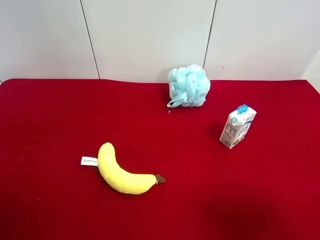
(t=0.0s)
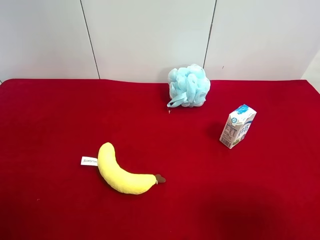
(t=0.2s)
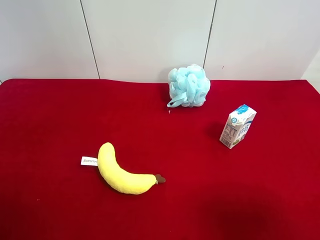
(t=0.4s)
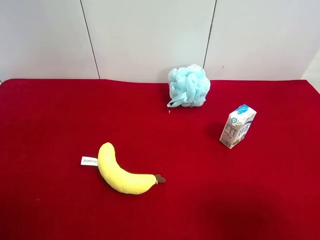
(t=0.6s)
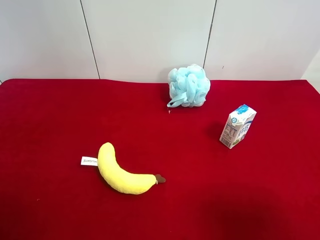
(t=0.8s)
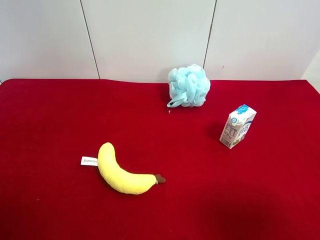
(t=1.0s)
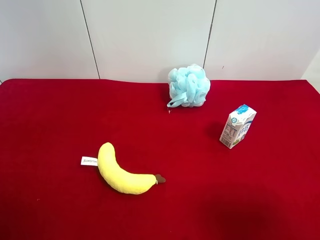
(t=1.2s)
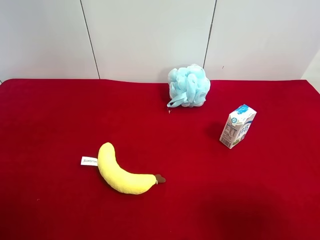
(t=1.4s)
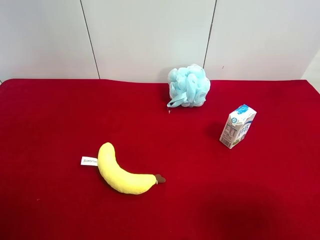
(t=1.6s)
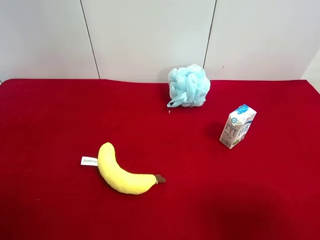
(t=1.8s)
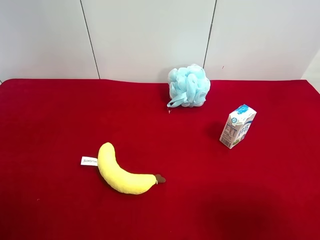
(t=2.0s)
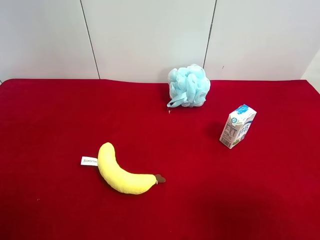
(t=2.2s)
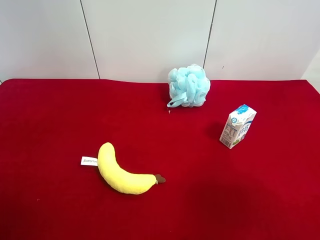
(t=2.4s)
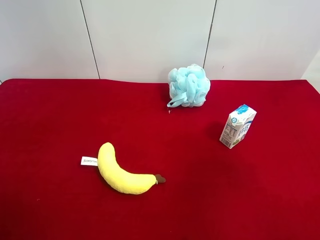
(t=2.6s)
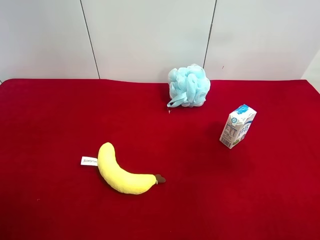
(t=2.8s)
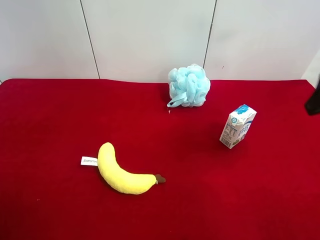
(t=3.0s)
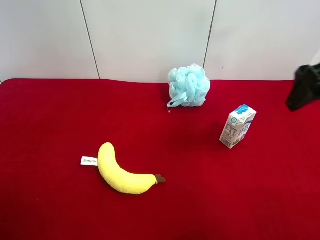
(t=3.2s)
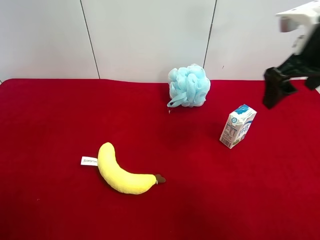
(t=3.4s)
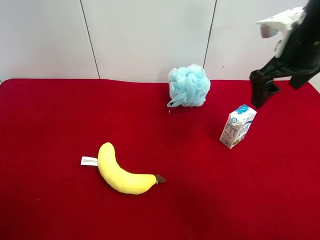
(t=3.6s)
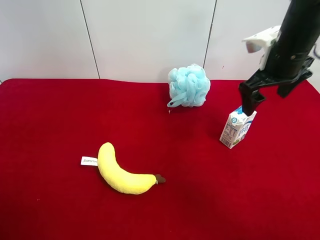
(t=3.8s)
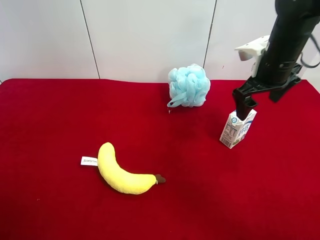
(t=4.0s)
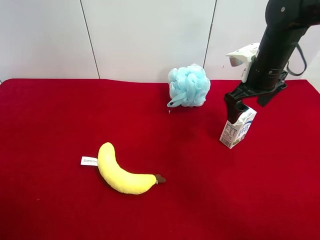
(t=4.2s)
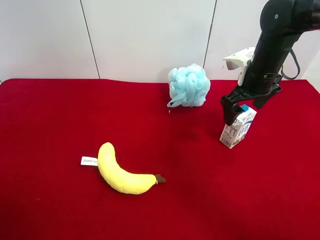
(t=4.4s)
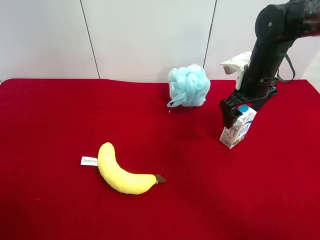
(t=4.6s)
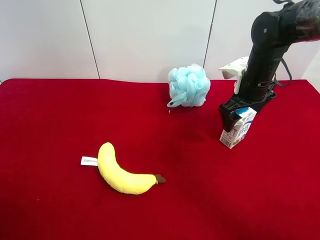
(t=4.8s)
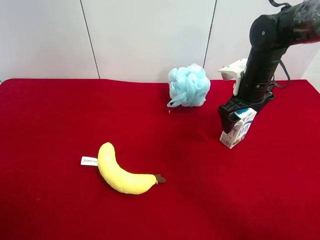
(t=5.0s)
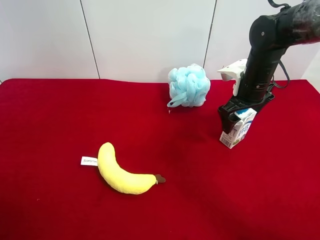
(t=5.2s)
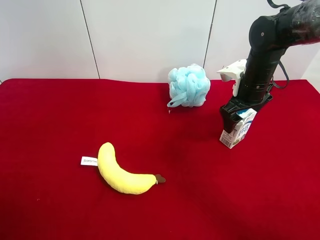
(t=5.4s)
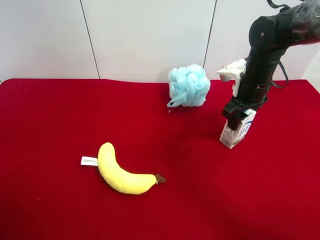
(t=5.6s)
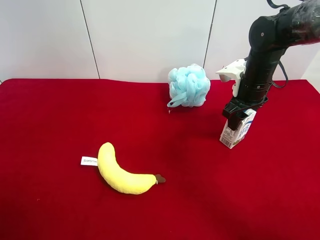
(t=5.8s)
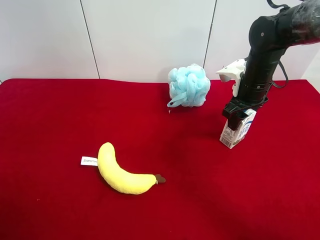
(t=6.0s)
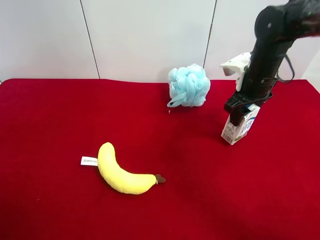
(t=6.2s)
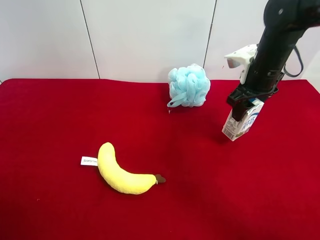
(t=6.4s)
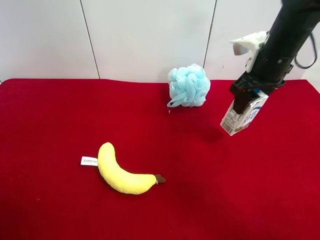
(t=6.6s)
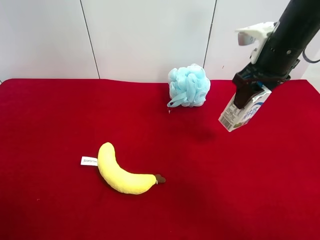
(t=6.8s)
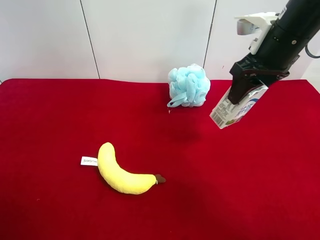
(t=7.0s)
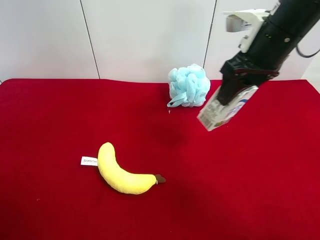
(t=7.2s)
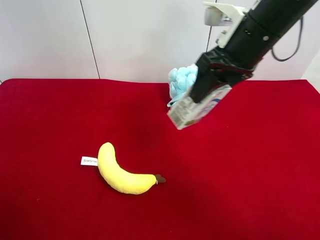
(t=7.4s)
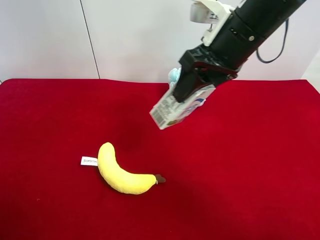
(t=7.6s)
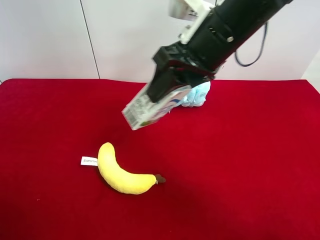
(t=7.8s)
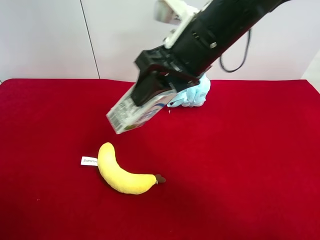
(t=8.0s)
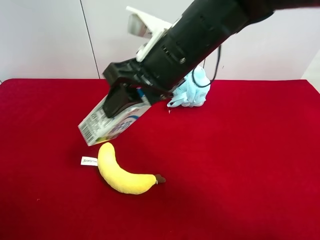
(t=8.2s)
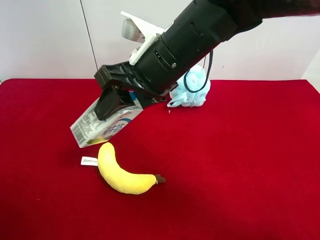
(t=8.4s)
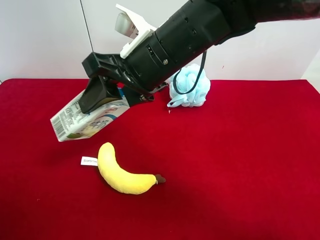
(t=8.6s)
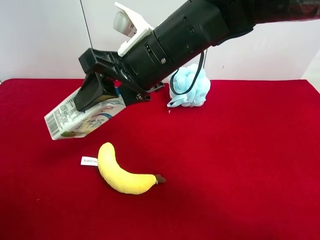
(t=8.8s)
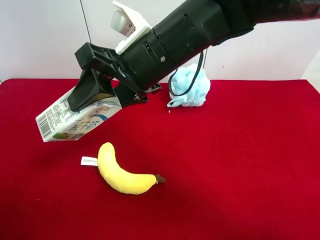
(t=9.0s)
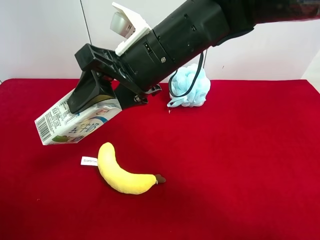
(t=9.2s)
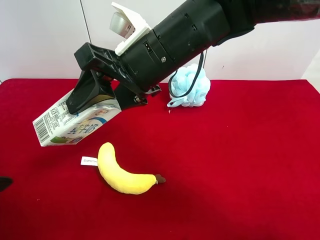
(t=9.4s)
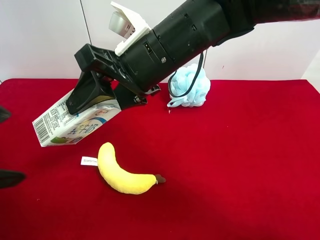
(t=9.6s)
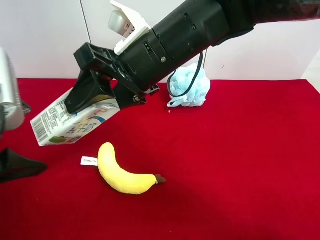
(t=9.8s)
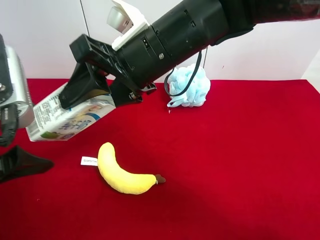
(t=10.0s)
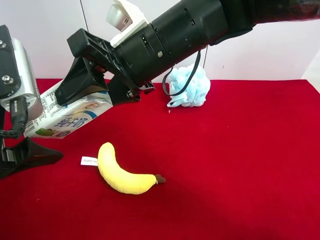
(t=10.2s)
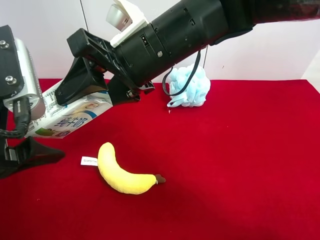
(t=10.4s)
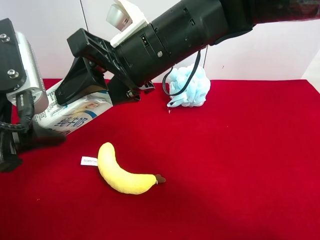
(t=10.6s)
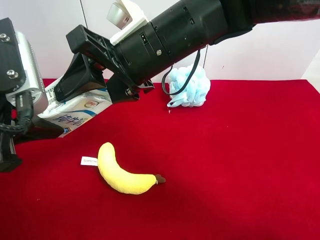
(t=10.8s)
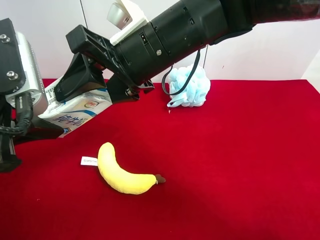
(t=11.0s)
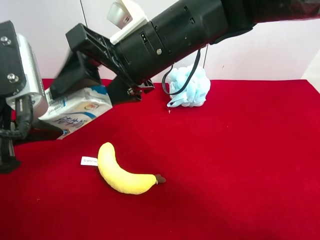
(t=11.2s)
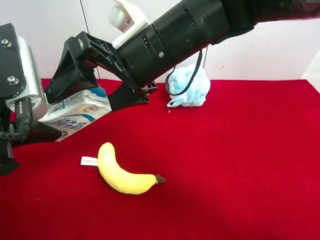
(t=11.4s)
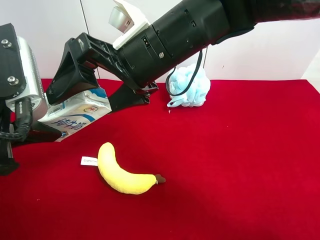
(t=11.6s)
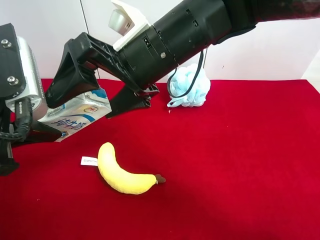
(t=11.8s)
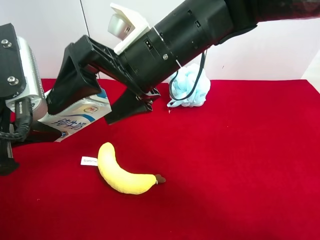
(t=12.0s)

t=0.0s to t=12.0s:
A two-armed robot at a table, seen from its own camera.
Task of the whole recording: use the right gripper to pick up the item and transfer it from the right gripper to the left gripper.
Step, t=0.0s to t=5.6s: Use the right gripper to grab the milk on the right side of the table.
Step, t=5.8s to t=11.8s: Pass the milk to the left gripper.
t=0.0s to t=1.6s: Neither gripper changes place.
t=3.0s to t=4.4s: The right gripper heads forward, downward and to the left, covering some 20 cm.
t=4.4s to t=6.0s: The right gripper closes.
t=6.0s to t=7.6s: The right gripper shifts about 20 cm upward, to the left and backward.
t=7.6s to t=9.0s: The left gripper travels forward by about 5 cm. Meanwhile the right gripper is displaced to the left by approximately 10 cm.
t=9.0s to t=10.4s: The left gripper is displaced forward and to the right by some 10 cm.
t=10.4s to t=12.0s: The left gripper closes. The right gripper opens its fingers.

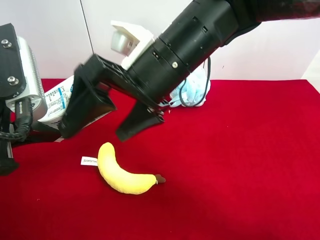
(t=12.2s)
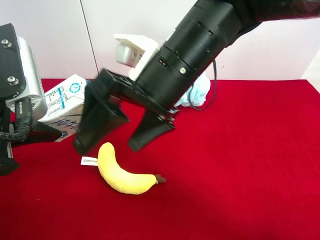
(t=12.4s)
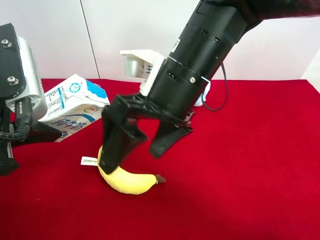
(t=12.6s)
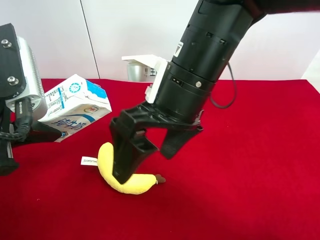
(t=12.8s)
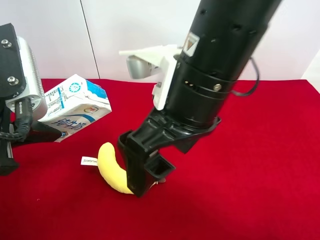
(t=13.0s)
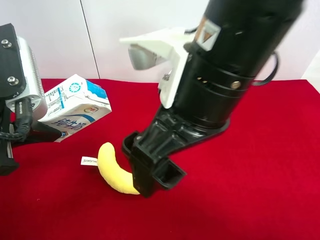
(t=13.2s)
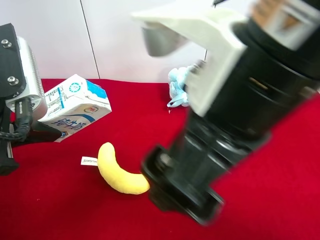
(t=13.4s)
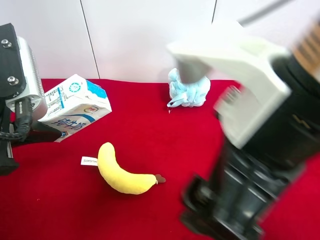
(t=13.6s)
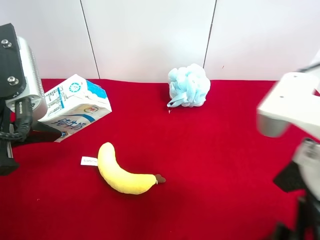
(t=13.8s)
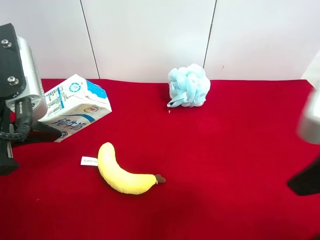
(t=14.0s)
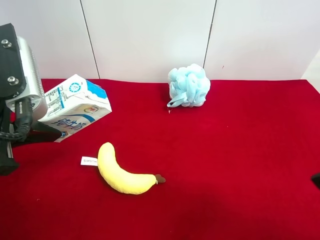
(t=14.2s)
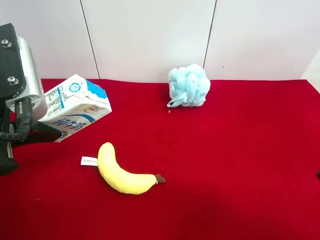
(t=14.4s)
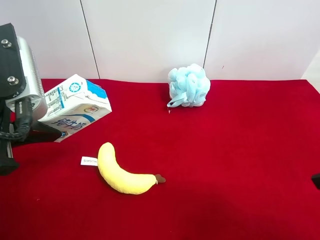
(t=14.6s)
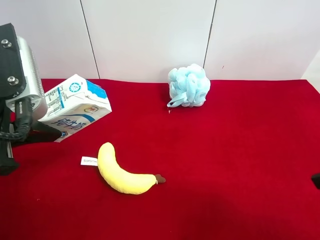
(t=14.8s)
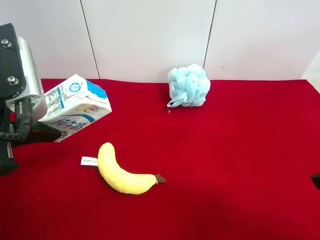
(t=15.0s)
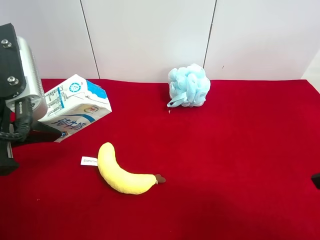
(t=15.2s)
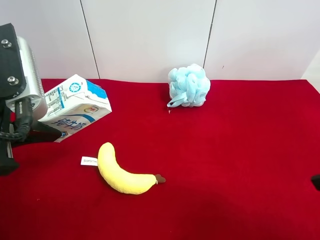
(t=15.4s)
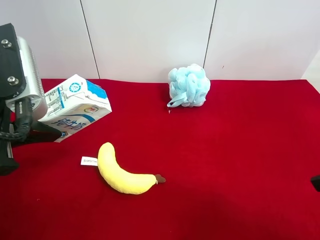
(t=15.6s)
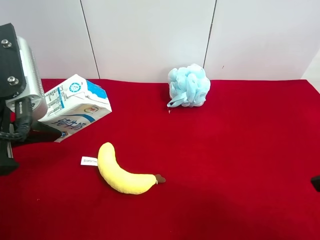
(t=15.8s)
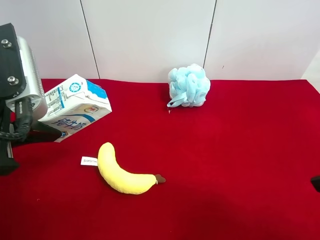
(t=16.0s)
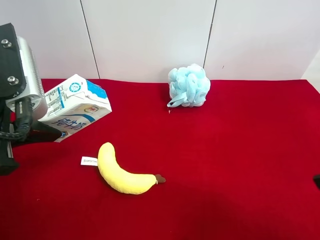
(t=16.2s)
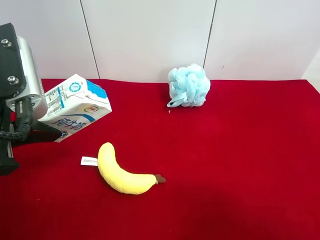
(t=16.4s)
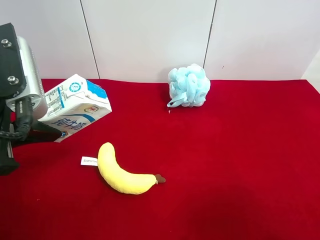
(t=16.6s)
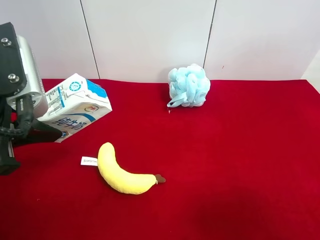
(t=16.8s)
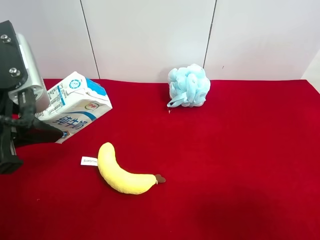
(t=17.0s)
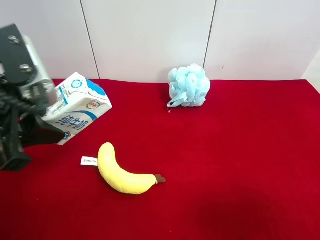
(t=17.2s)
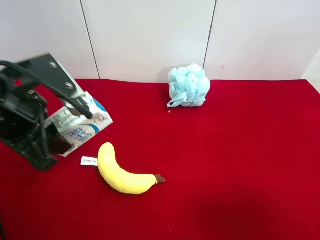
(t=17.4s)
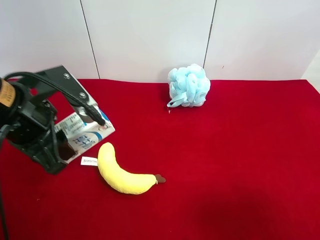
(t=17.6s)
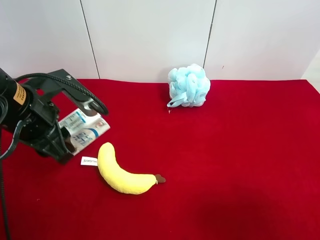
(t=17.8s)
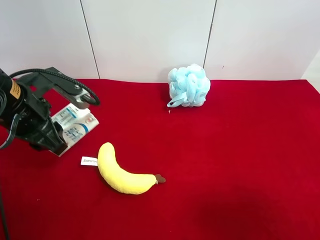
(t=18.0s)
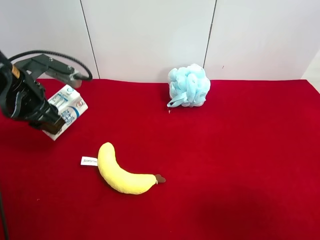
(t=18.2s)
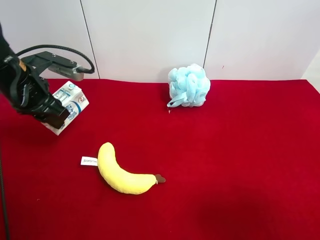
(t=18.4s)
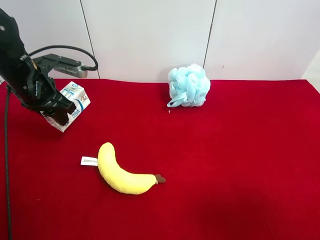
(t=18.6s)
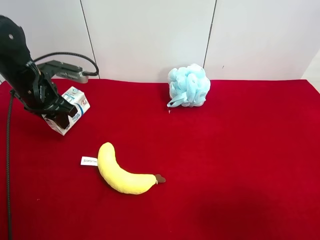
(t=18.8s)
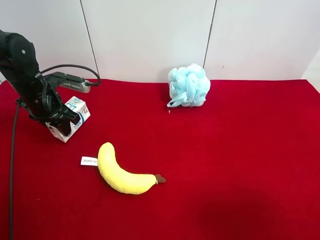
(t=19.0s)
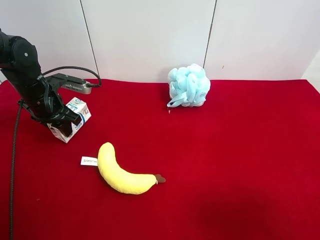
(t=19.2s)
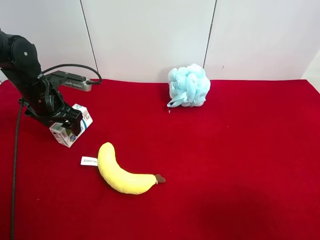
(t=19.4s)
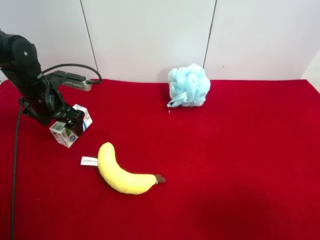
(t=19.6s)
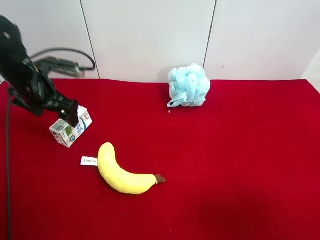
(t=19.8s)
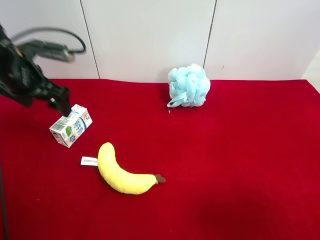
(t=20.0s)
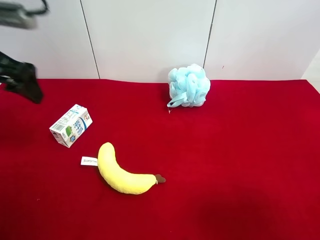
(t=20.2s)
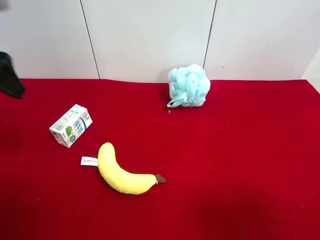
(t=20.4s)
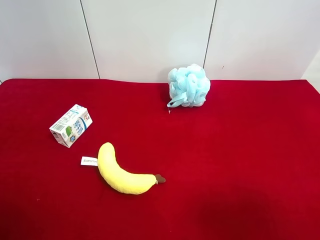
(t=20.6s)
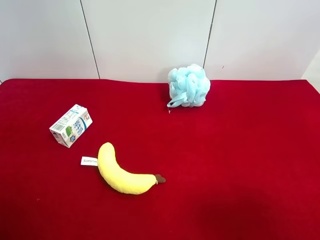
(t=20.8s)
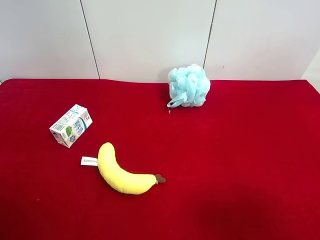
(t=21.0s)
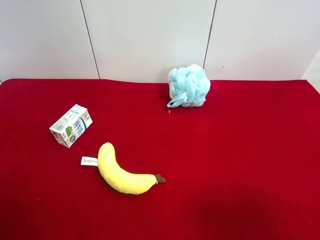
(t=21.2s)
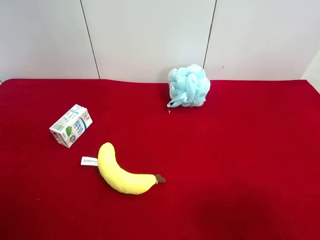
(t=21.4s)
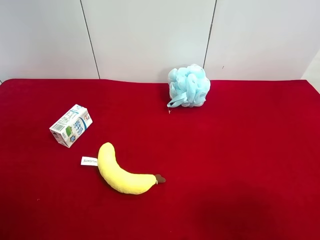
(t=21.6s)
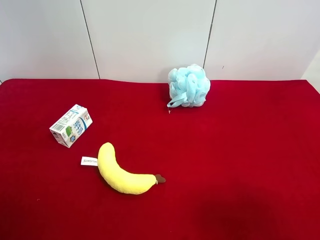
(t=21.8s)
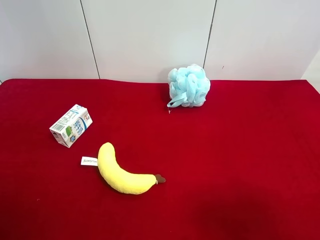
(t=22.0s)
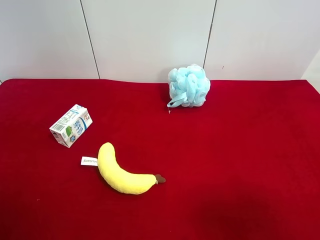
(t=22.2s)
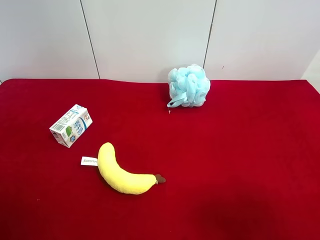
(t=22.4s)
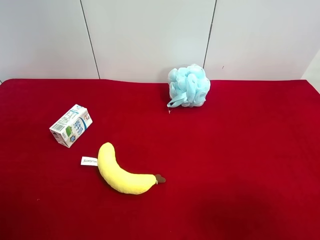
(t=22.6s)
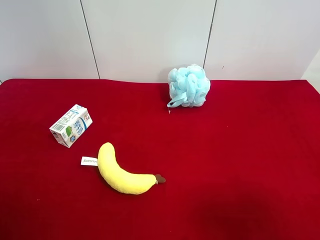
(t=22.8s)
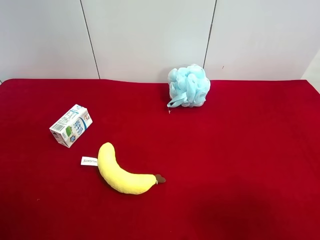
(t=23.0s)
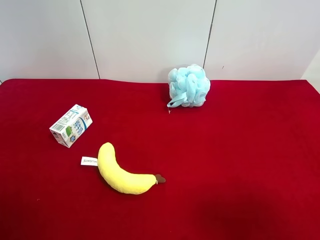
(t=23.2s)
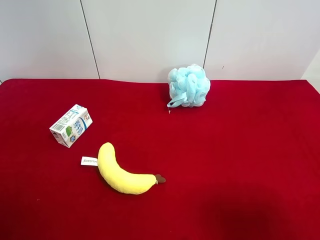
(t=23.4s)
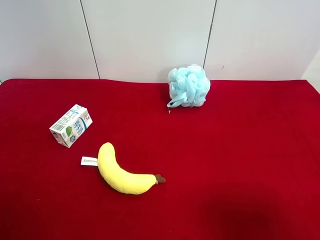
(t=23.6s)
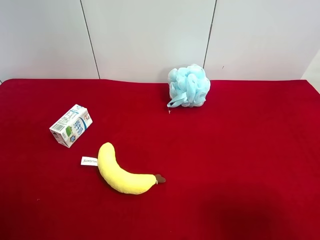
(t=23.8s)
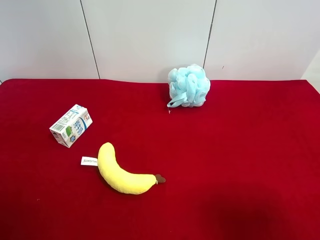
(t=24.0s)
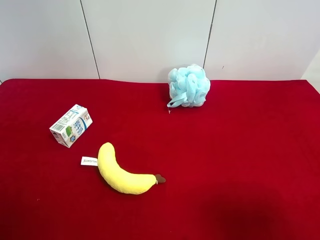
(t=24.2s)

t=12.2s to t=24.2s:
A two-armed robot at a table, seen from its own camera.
Task of the whole recording: use the right gripper to pick up the item and transfer it from the right gripper to the left gripper.
Step, t=12.2s to t=19.4s: The left gripper places milk on the left side of the table.
t=12.2s to t=13.8s: The right gripper goes approximately 20 cm backward and to the right.
t=13.8s to t=15.2s: The right gripper is displaced to the right by some 10 cm.
t=16.6s to t=18.2s: The left gripper heads forward and downward, covering approximately 15 cm.
t=18.2s to t=19.8s: The left gripper travels forward by about 5 cm, and opens.
t=19.8s to t=21.2s: The left gripper is displaced backward by about 30 cm.
